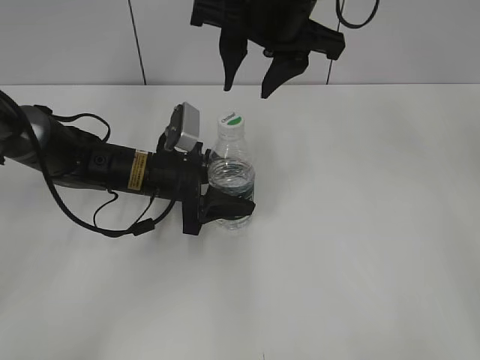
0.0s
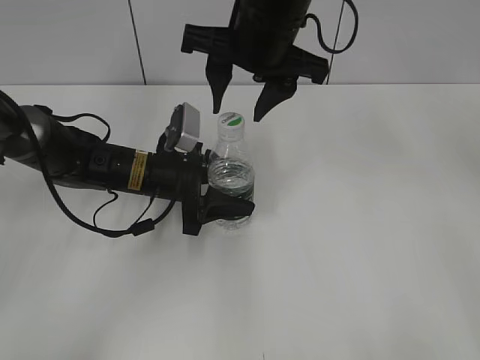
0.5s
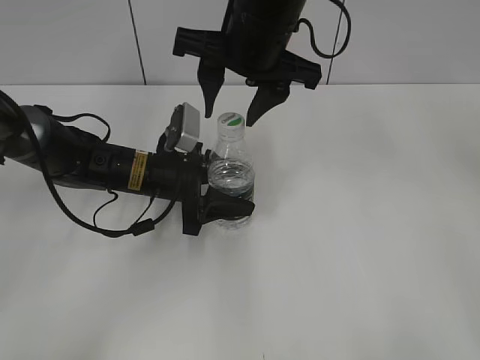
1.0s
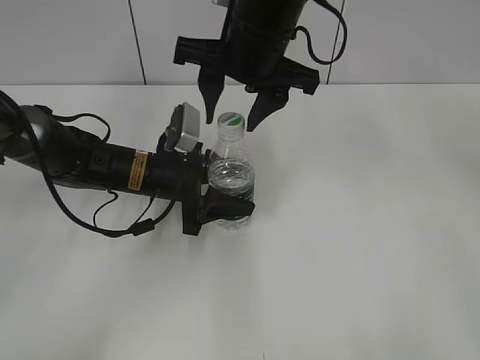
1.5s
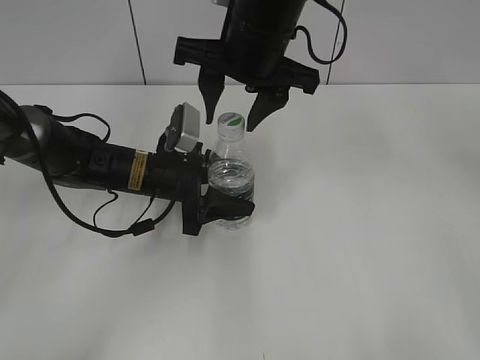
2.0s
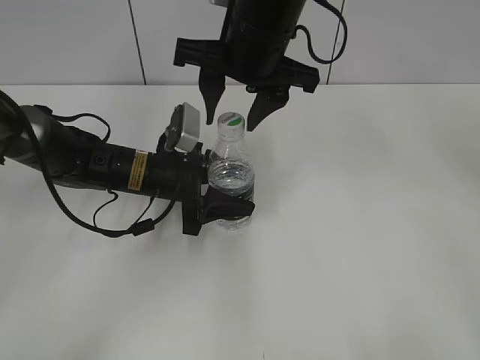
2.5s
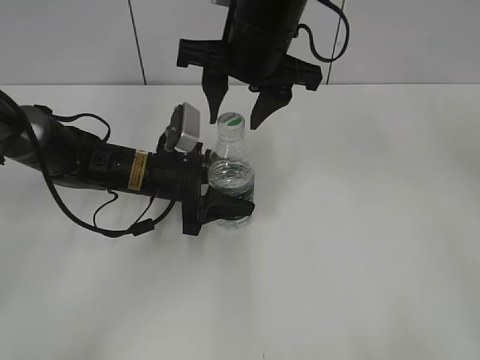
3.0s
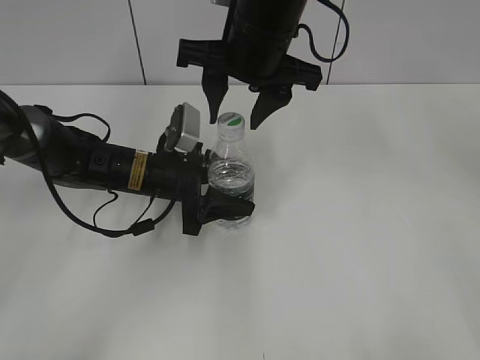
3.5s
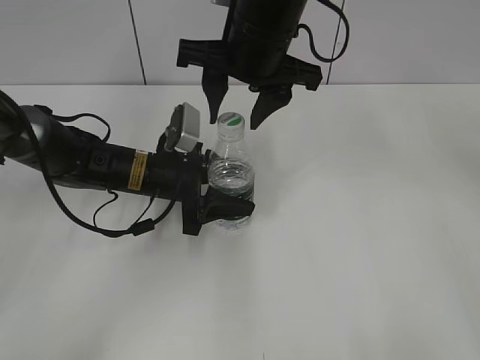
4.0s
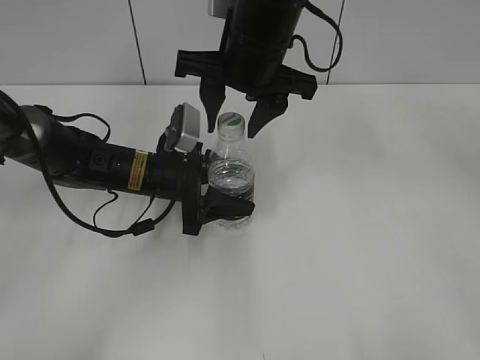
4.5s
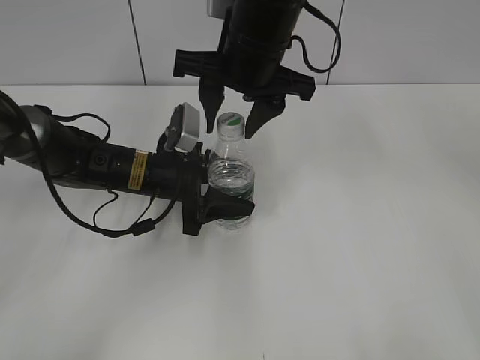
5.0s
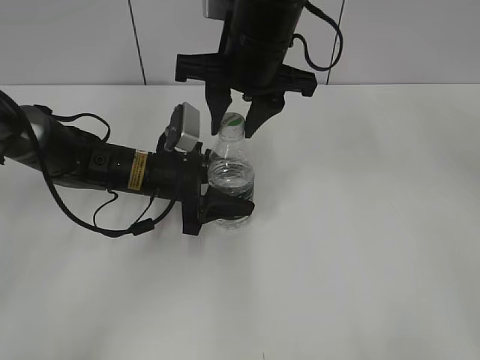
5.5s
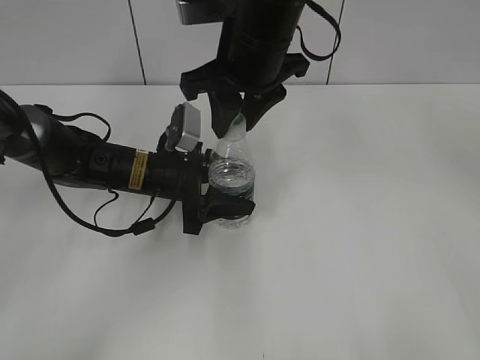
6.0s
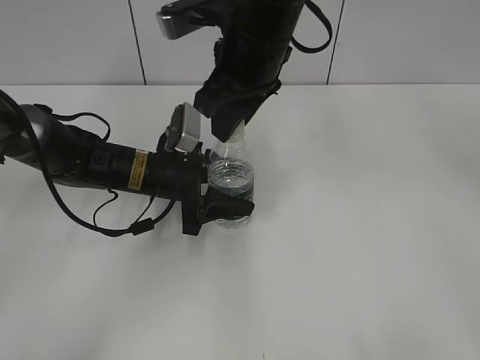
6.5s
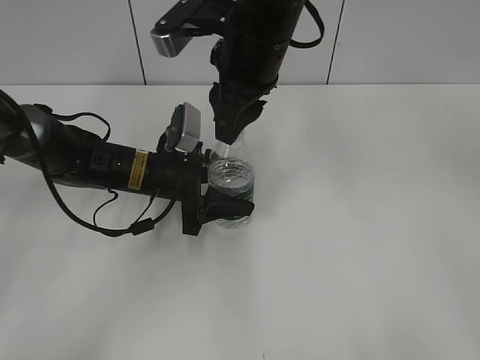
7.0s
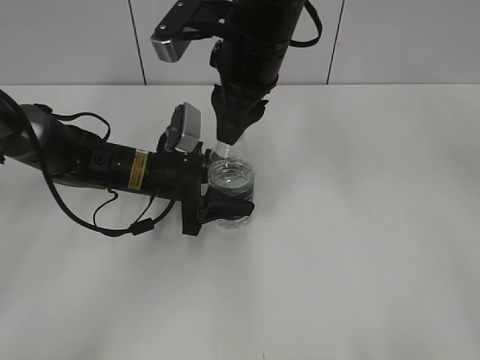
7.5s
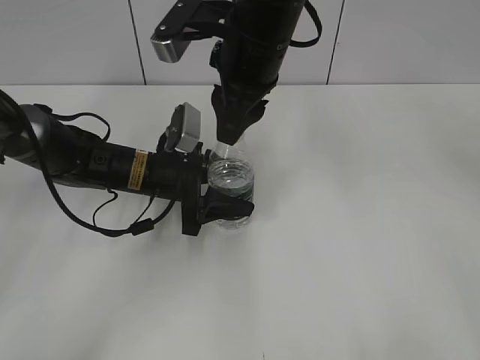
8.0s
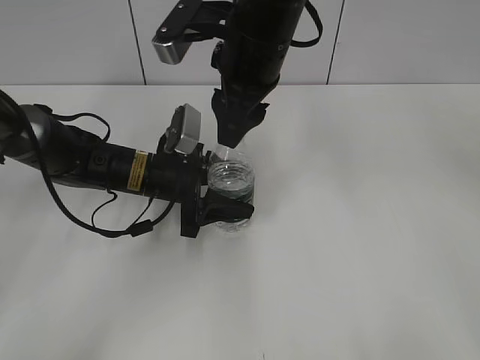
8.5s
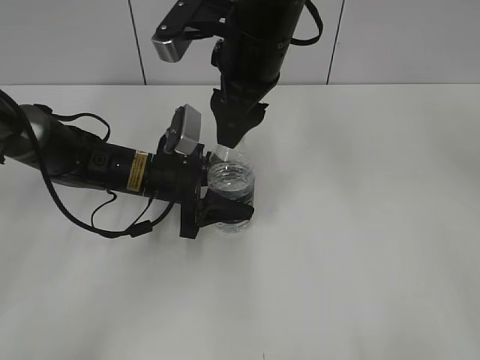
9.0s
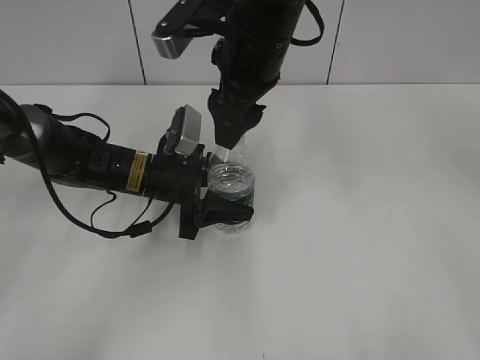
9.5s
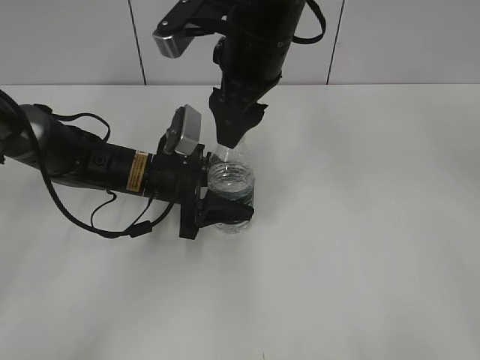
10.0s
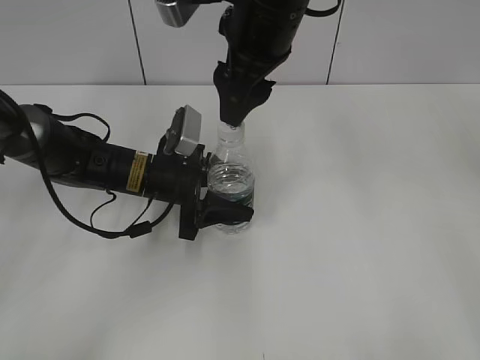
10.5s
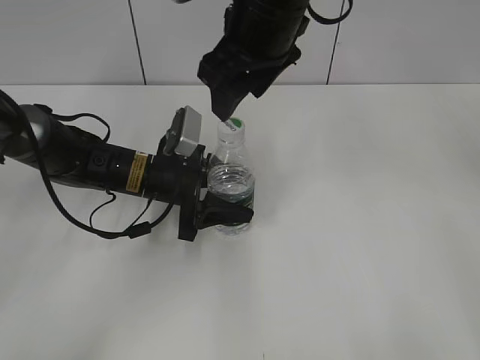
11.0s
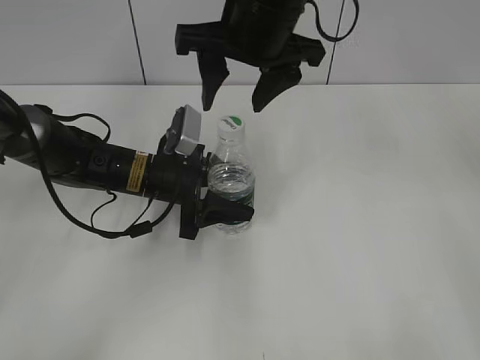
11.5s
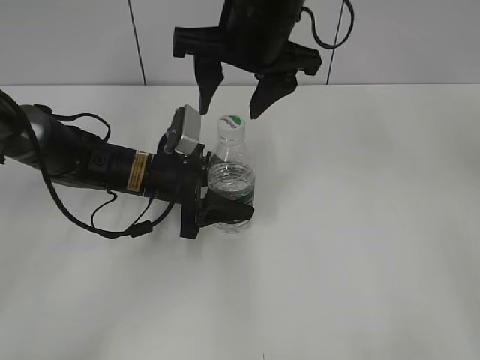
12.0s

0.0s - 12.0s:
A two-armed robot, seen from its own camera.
0.0s - 2.0s: The grippers move only a little.
2.0s - 4.0s: Both grippers stay put.
4.0s - 6.0s: The right gripper closes.
8.0s - 10.0s: The right gripper opens its fingers.

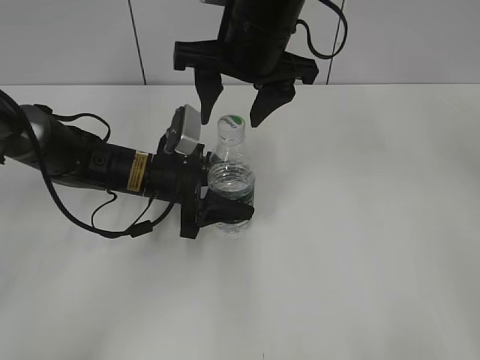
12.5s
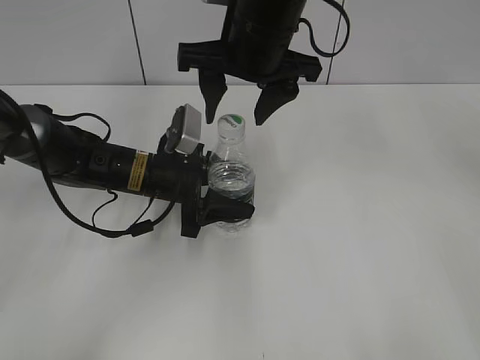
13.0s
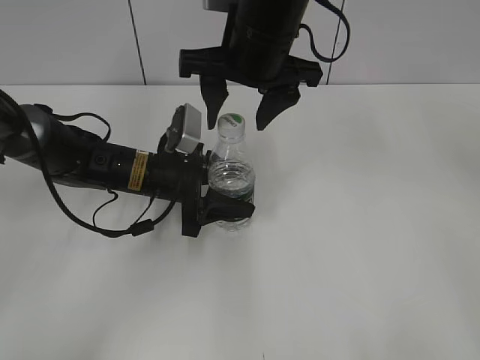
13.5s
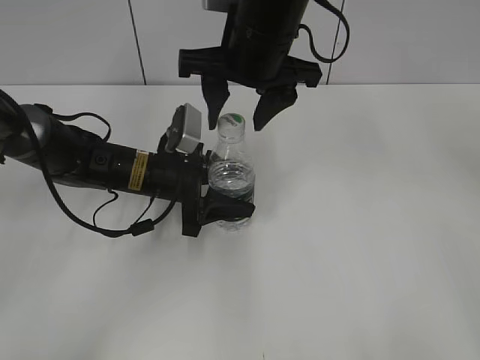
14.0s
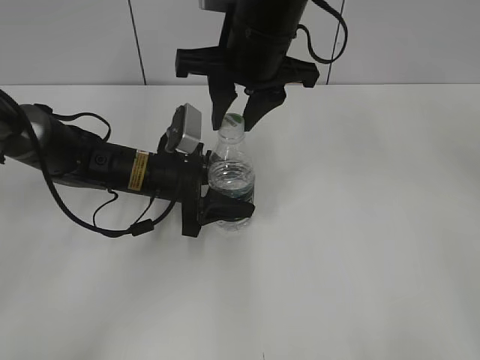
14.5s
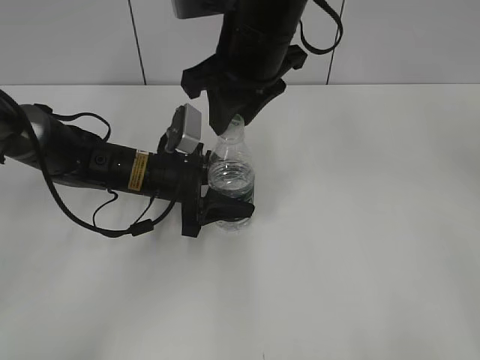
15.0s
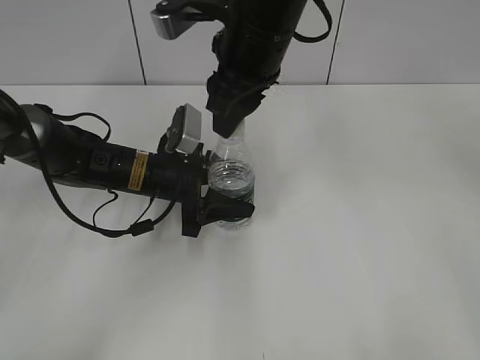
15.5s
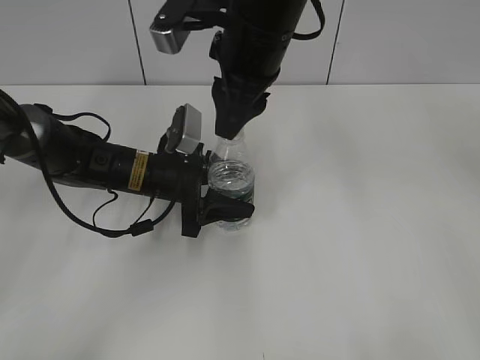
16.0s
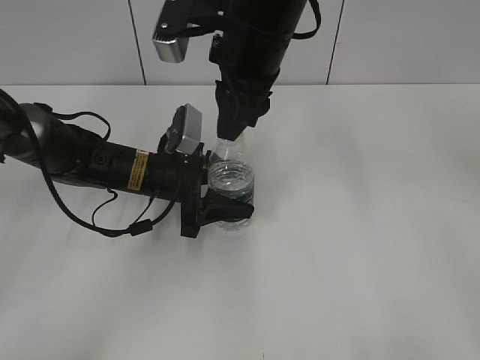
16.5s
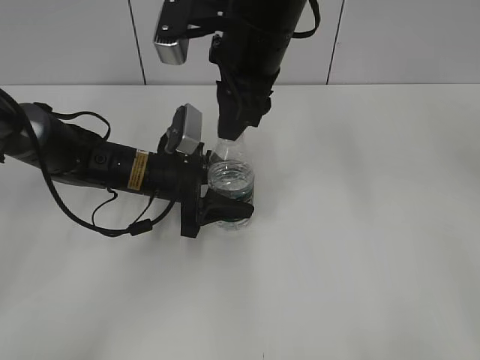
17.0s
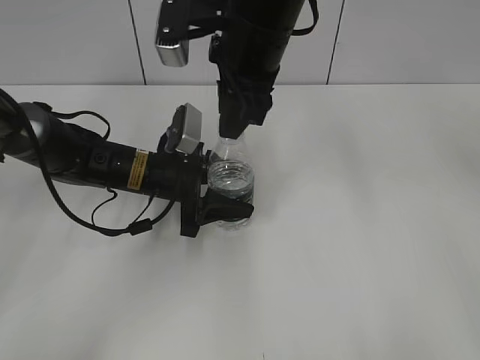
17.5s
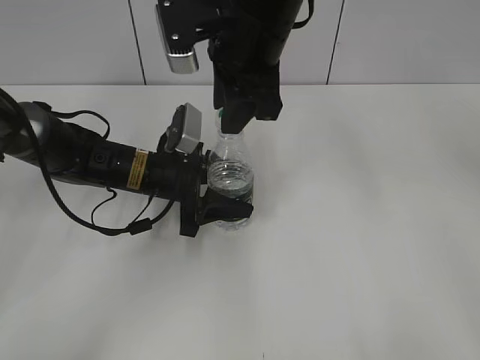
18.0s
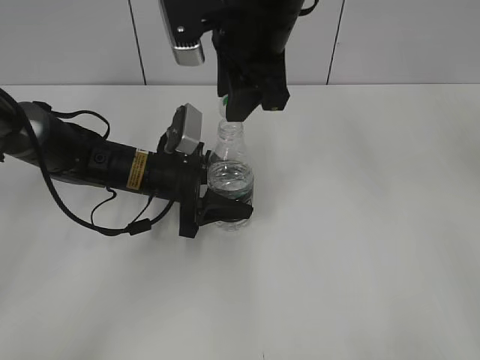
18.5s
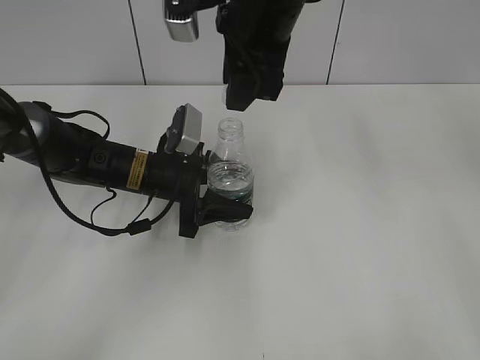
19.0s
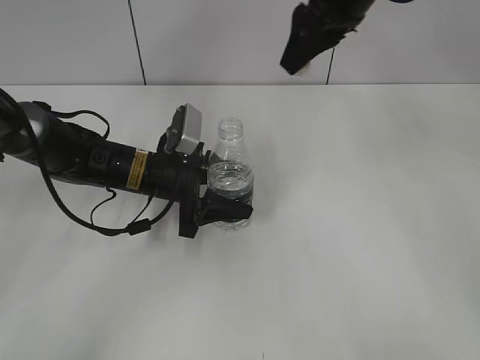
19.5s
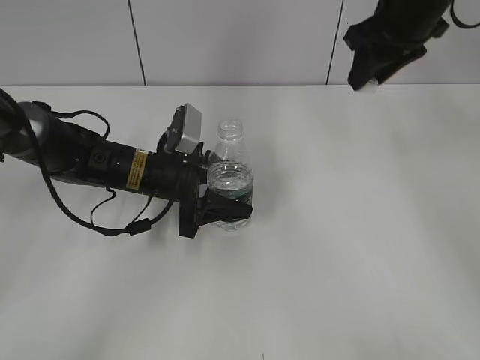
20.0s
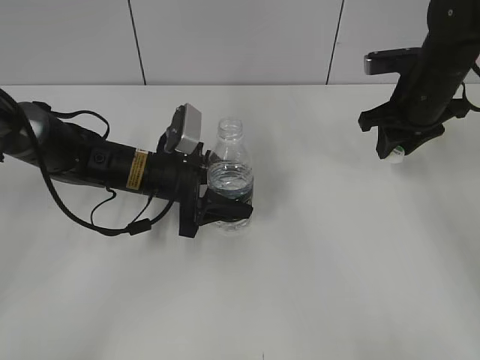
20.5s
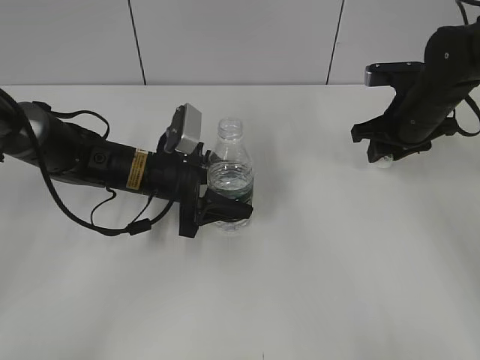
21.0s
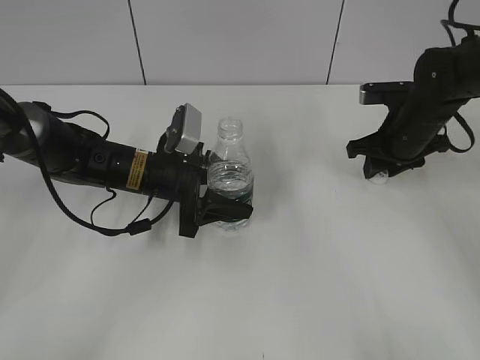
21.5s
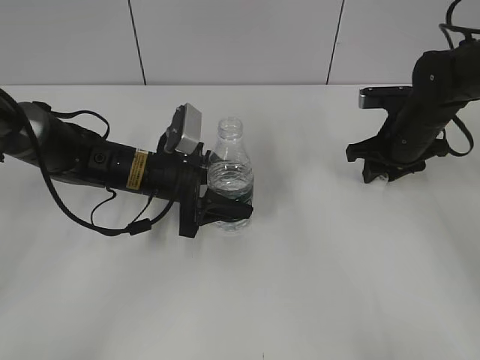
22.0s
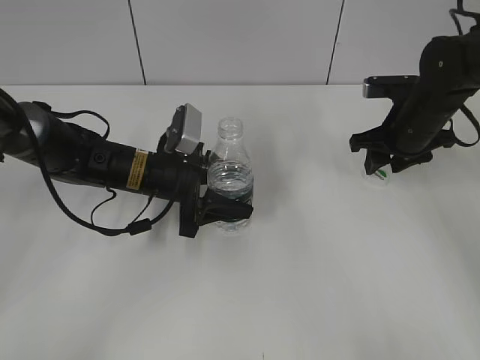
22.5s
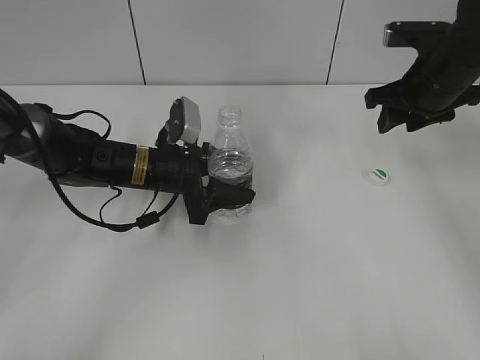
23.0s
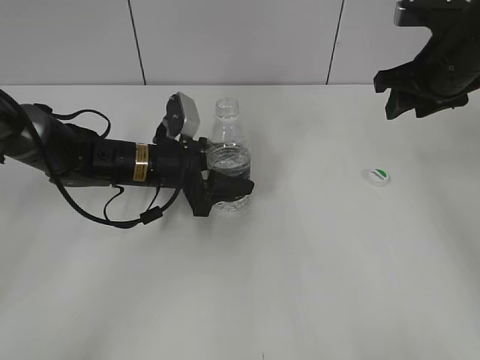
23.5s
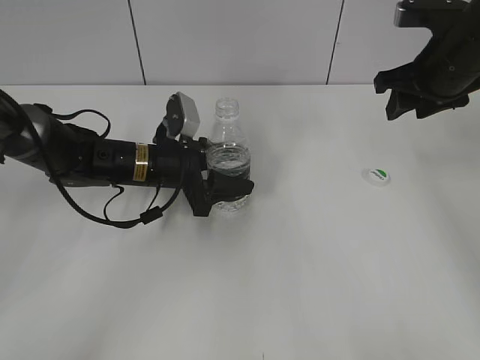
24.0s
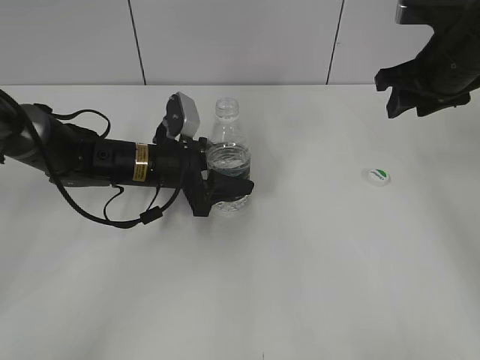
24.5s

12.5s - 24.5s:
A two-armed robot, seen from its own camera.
Step, 12.5s - 19.0s: Unscrew the bottle cap with the right gripper while holding the bottle with the left gripper.
Step, 19.5s - 22.5s: Place the bottle cap on the table with the right gripper.
12.5s - 14.5s: The right gripper closes.
16.5s - 18.5s: The grippers move only a little.
18.5s - 20.5s: The right gripper goes roughly 25 cm to the right and downward.
20.5s - 22.5s: The right gripper is displaced downward by roughly 5 cm.
22.5s - 24.5s: The right gripper travels upward by approximately 10 cm.

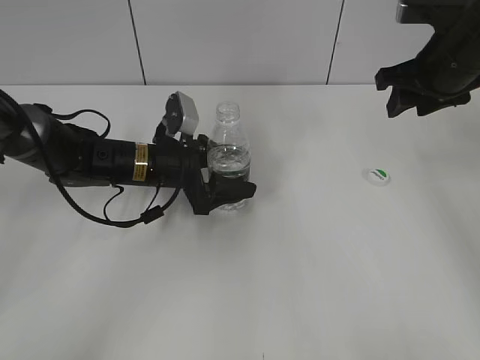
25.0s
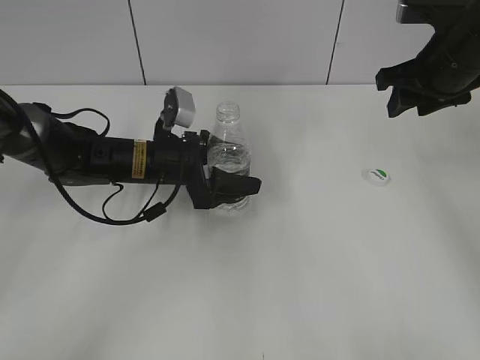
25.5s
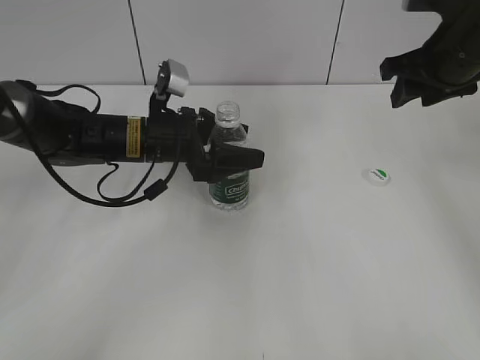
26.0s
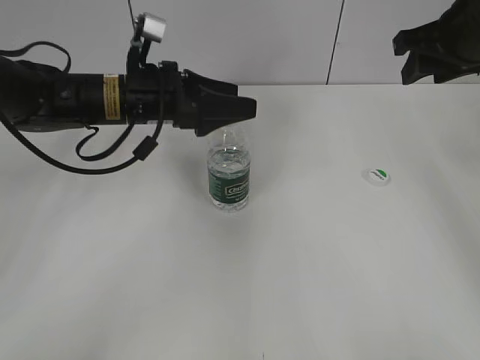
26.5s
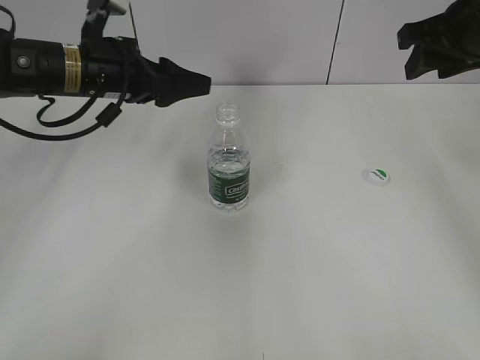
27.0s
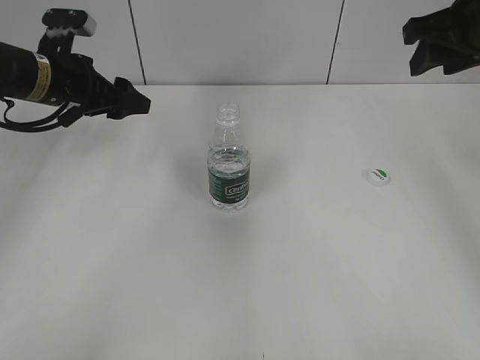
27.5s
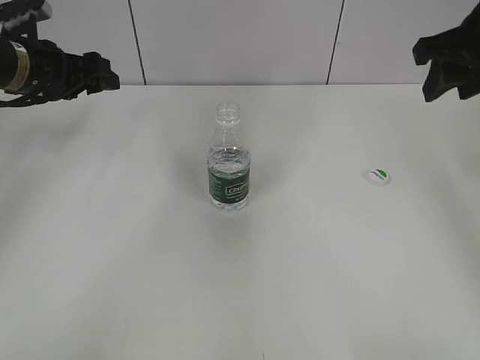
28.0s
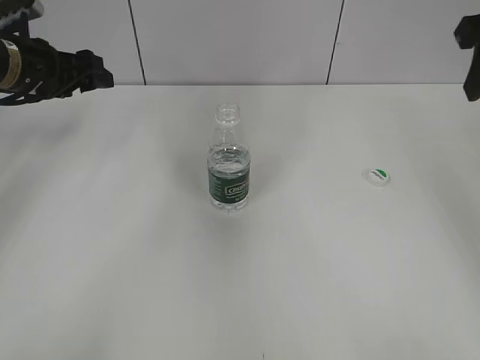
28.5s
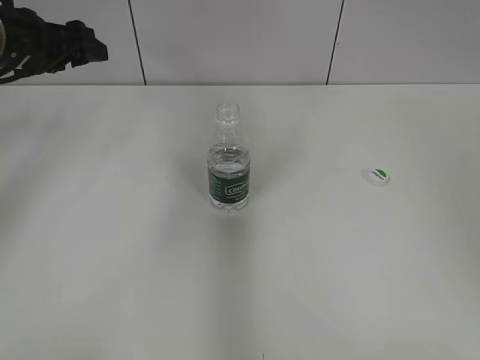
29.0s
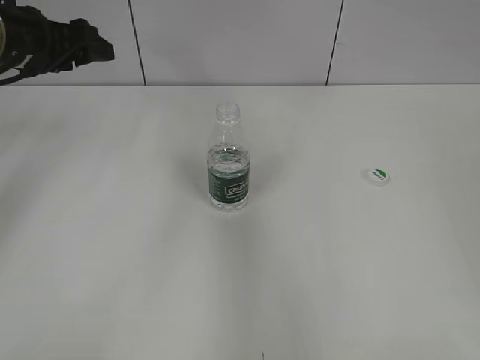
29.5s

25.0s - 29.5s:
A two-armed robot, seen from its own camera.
25.0s - 27.0s: The left gripper shifts some 15 cm upward and to the left. The right gripper moves upward, about 5 cm.
27.0s - 29.5s: The left gripper shifts roughly 10 cm to the left. Meanwhile the right gripper is displaced backward by some 30 cm.
